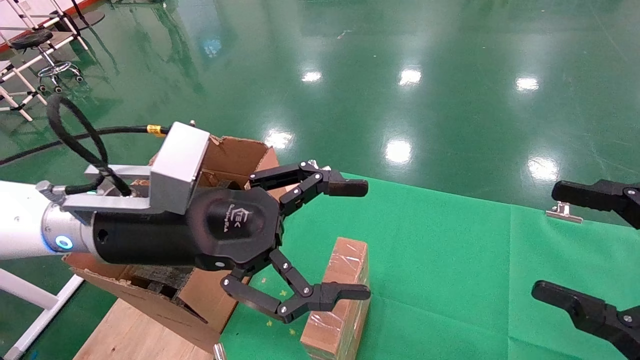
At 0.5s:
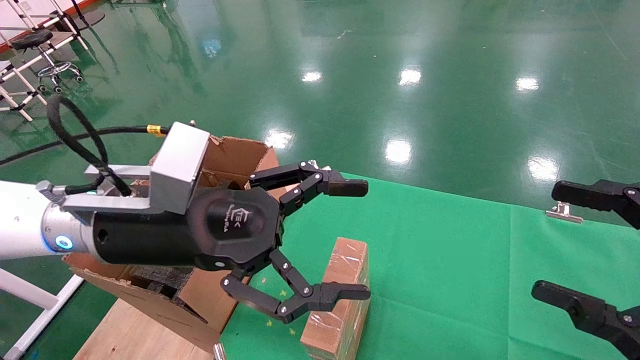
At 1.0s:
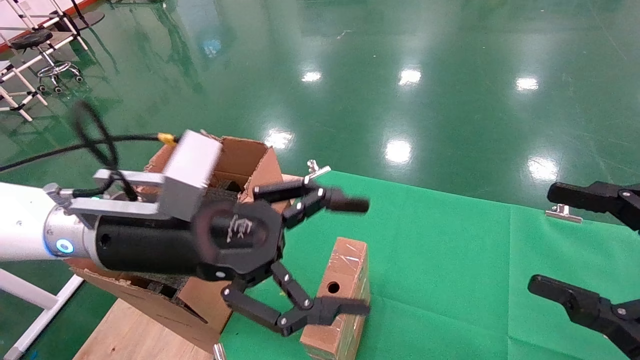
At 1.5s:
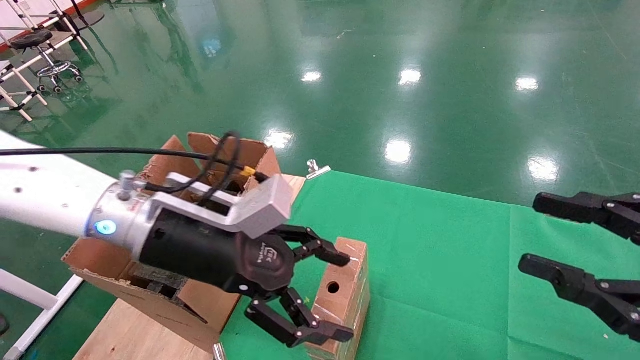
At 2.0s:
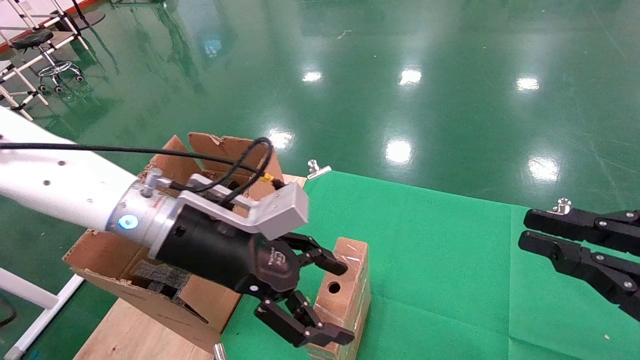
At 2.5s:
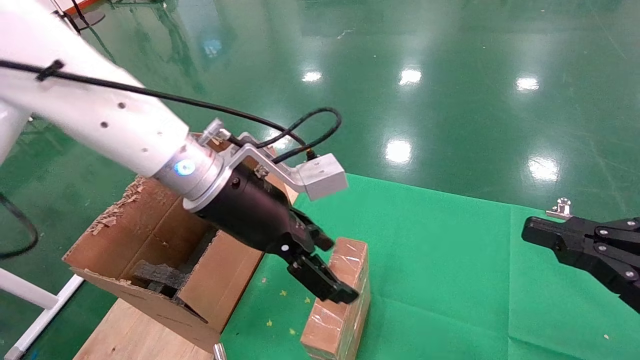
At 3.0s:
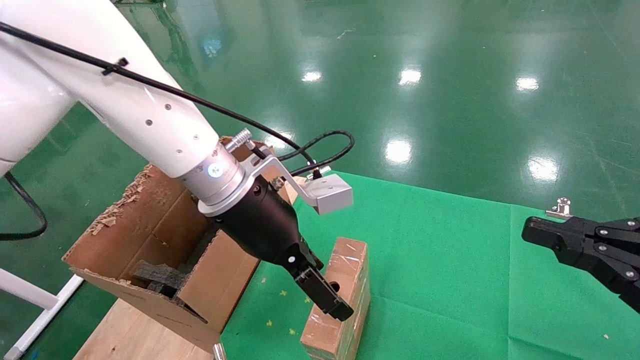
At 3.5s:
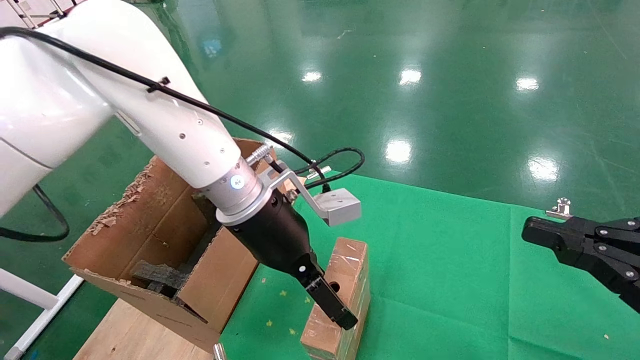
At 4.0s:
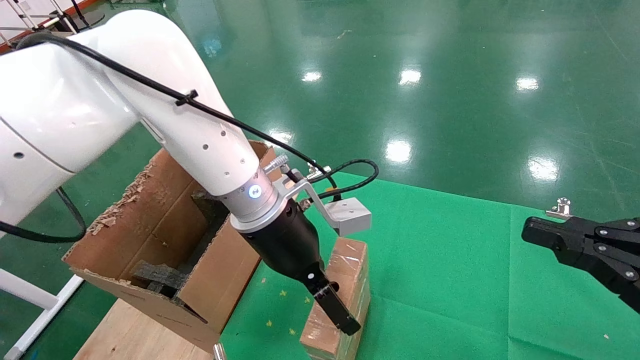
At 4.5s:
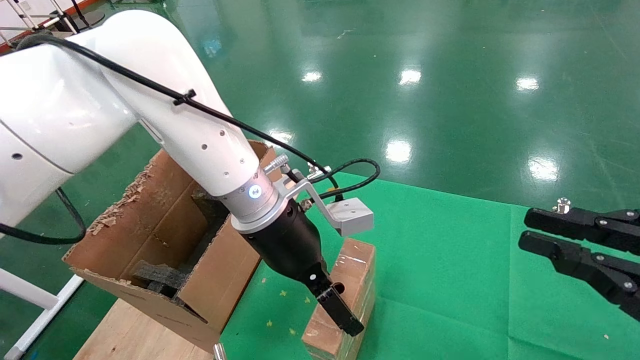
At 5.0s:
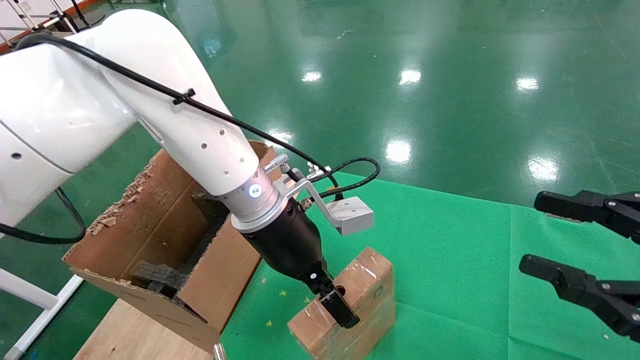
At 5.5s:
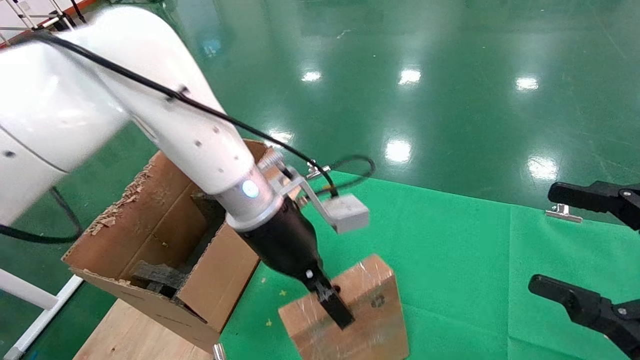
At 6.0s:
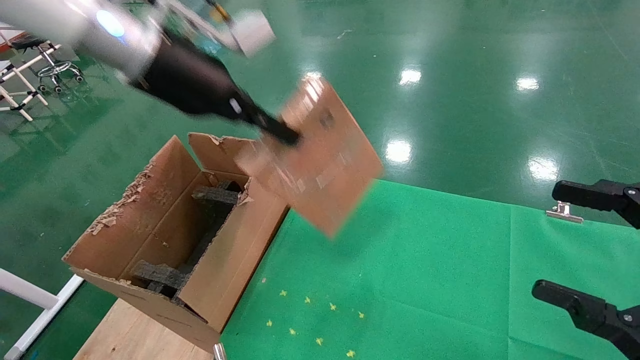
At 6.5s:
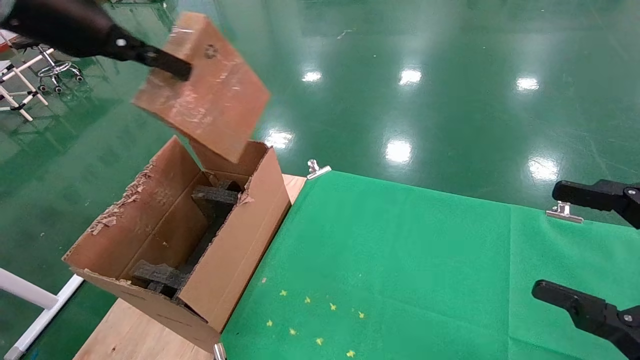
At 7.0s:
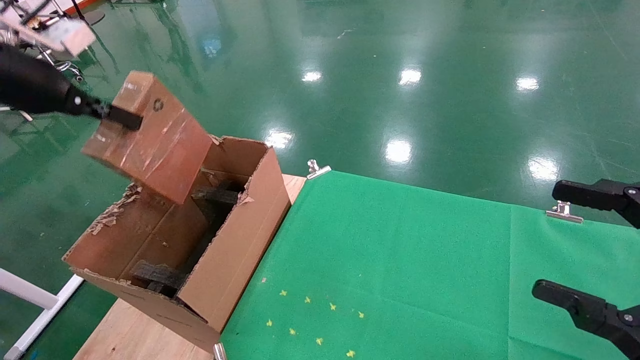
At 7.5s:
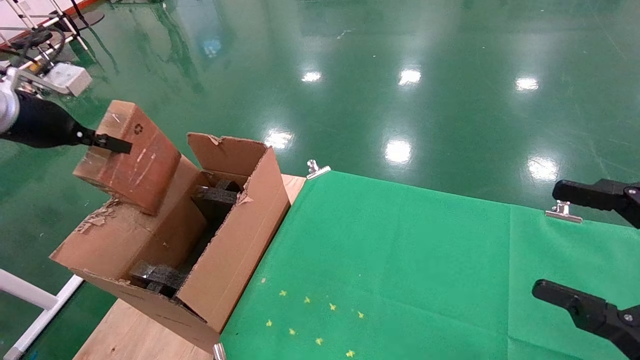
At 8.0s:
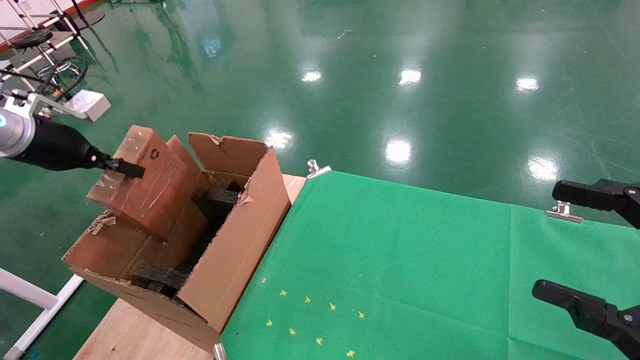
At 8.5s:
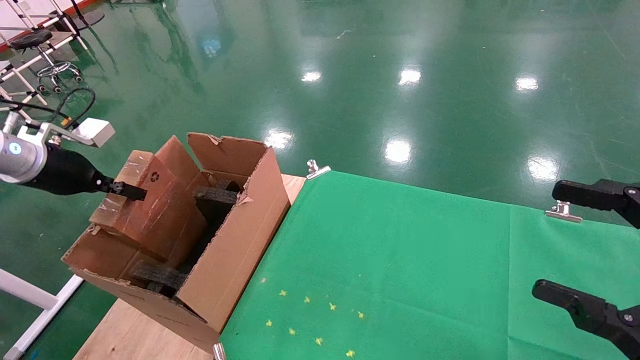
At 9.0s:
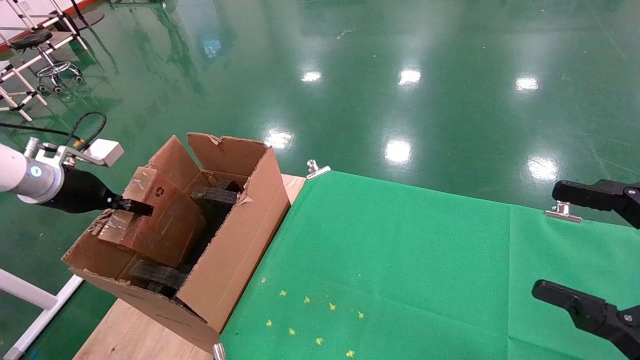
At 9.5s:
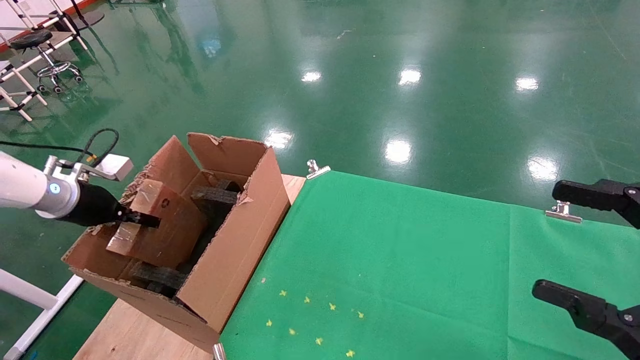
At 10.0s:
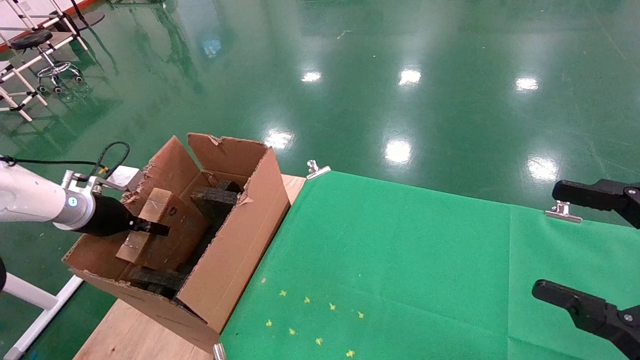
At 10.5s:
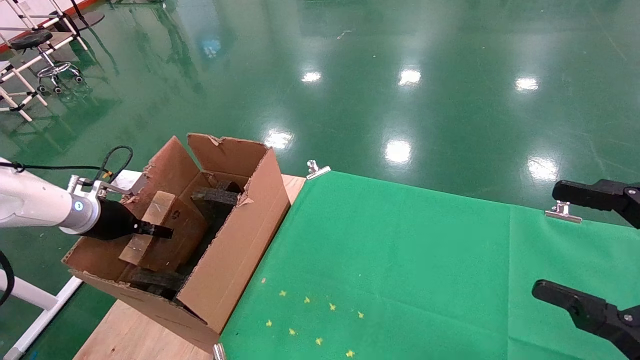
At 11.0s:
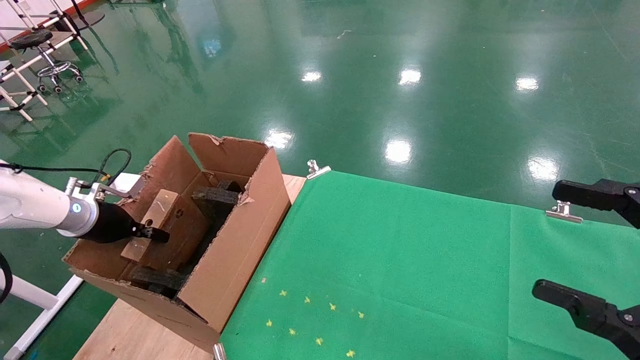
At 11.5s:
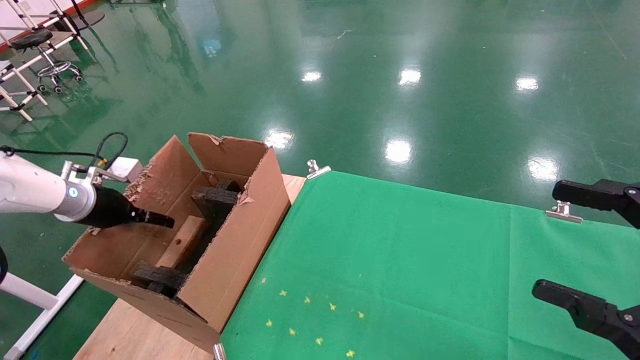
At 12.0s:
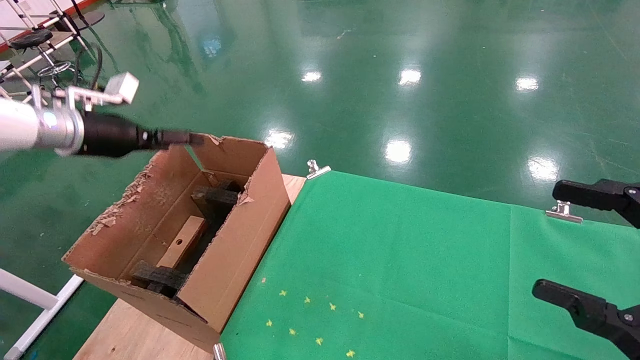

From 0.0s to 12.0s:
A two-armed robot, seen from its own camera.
Task of the whole recording: using a robotic arm to pick up a cardboard box and palace it the carton.
Step, from 1.5s to 5.0s: Pick up the mouse and the power cord paper box.
From 0.0s to 2.0s: The left gripper changes place by roughly 5 cm, while the right gripper closes its fingers.
From 2.0s to 4.0s: The left gripper travels to the right and forward by about 10 cm.
From 4.0s to 6.0s: The left gripper goes some 20 cm upward and to the left, and closes; the right gripper opens.
From 6.0s to 8.0s: The left gripper is displaced to the left and downward by approximately 30 cm.
From 8.0s to 10.0s: The left gripper heads downward, covering approximately 15 cm.
From 10.0s to 12.0s: The left gripper moves upward, about 15 cm, and opens up.

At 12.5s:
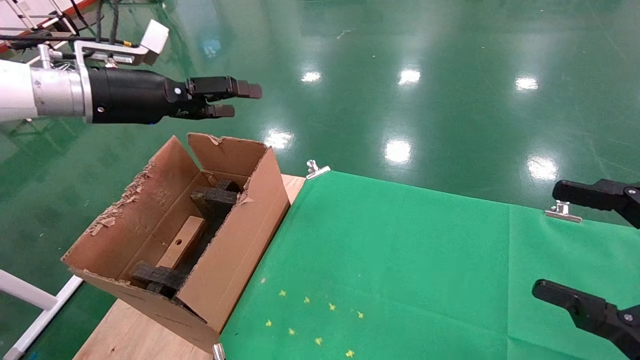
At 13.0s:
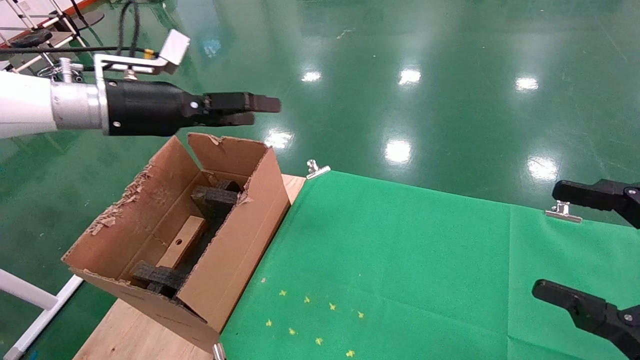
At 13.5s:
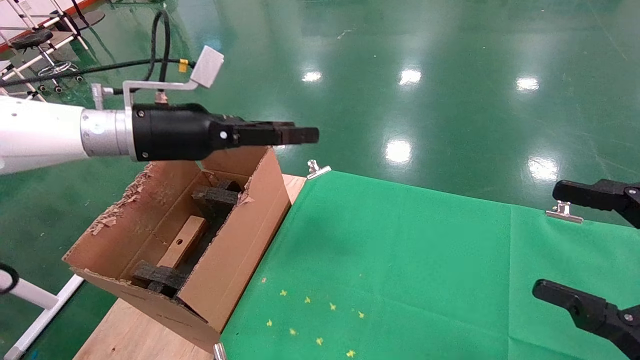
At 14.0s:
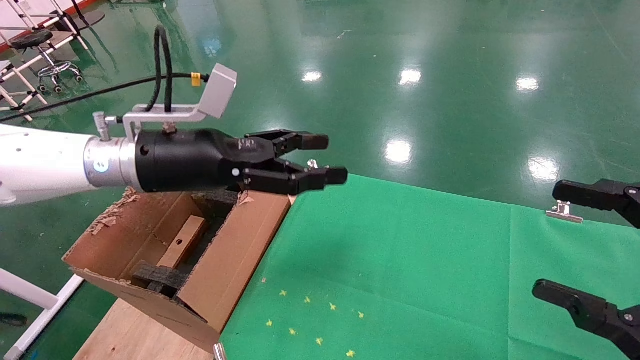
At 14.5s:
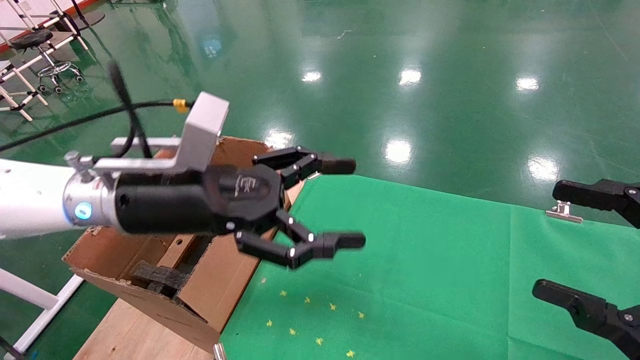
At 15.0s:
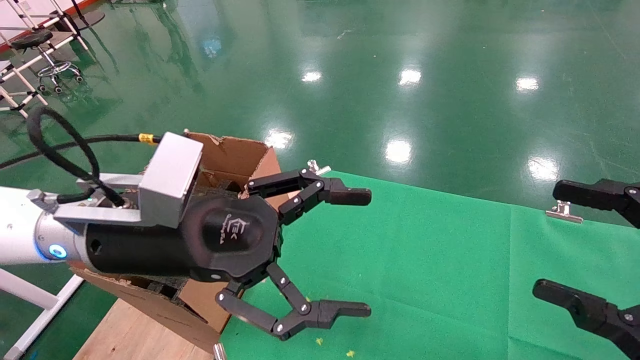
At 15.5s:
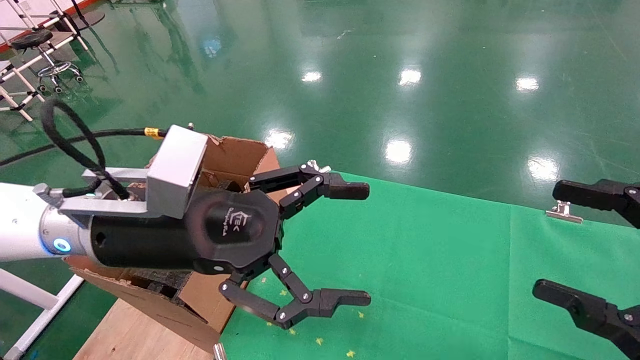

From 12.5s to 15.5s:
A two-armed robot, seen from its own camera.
Task of the whole recording: using a robotic arm to pick up a cardboard box and palace it the carton.
From 12.5s to 14.0s: The left gripper heads to the right and downward, covering some 15 cm.
From 14.0s to 15.5s: The left gripper shifts approximately 10 cm backward.
